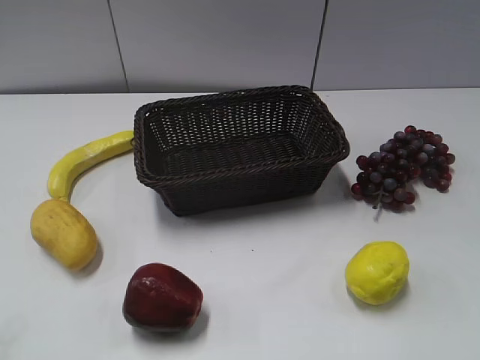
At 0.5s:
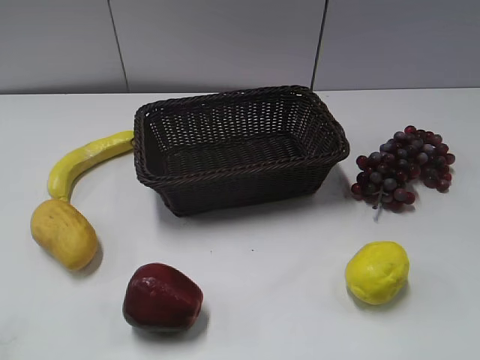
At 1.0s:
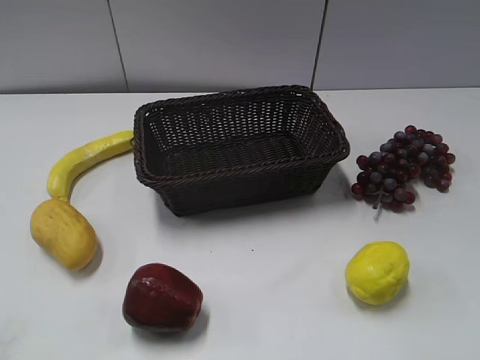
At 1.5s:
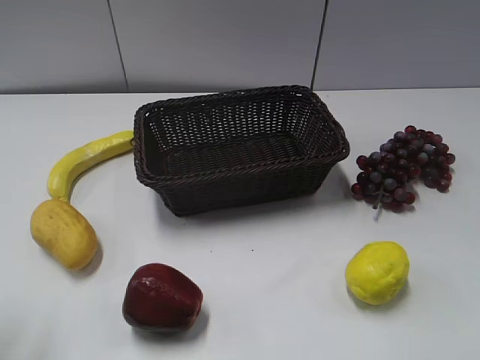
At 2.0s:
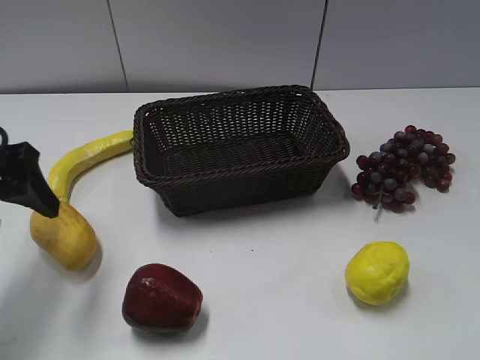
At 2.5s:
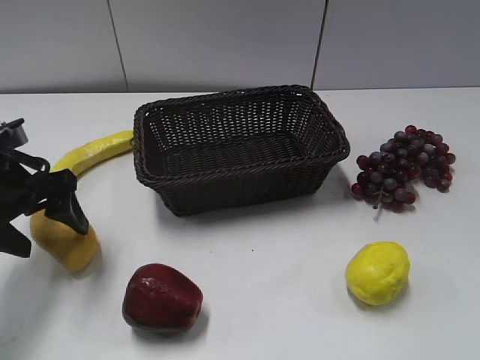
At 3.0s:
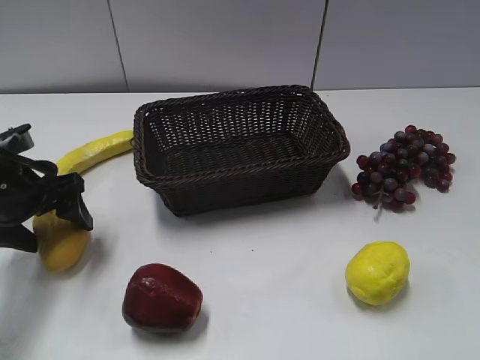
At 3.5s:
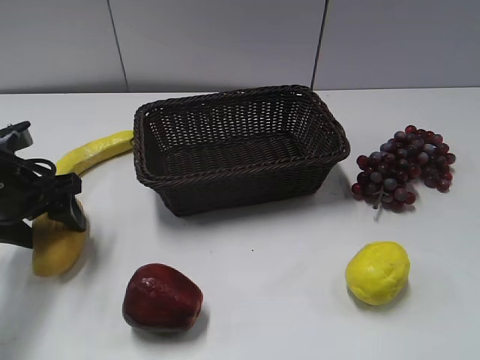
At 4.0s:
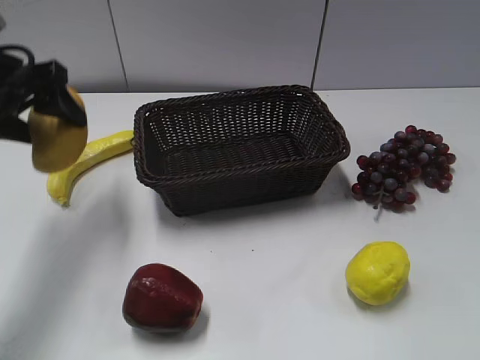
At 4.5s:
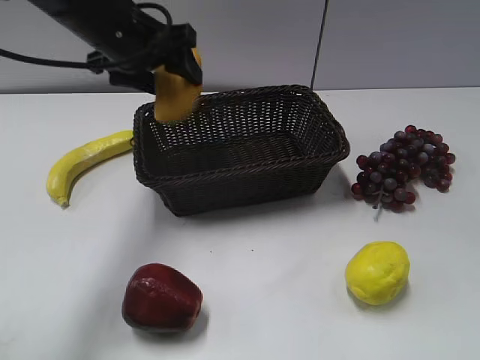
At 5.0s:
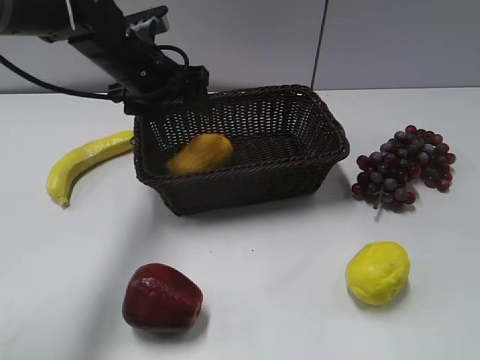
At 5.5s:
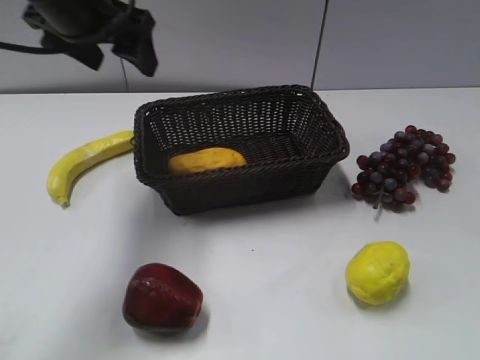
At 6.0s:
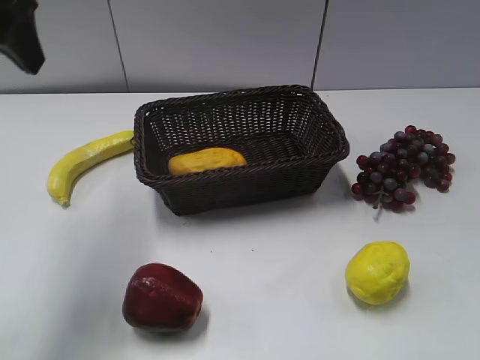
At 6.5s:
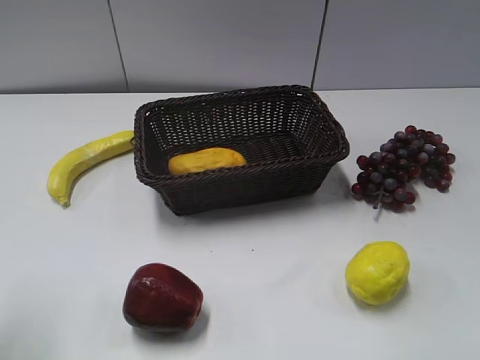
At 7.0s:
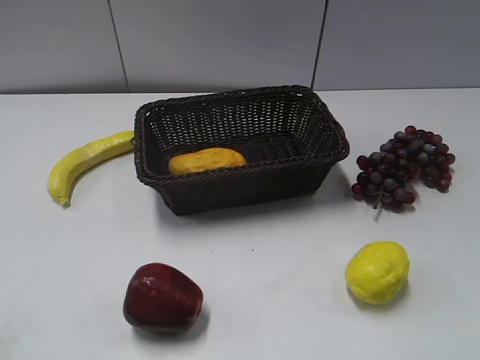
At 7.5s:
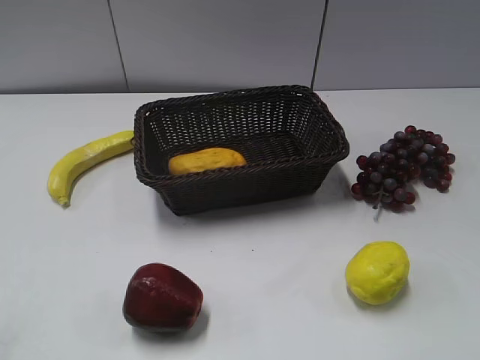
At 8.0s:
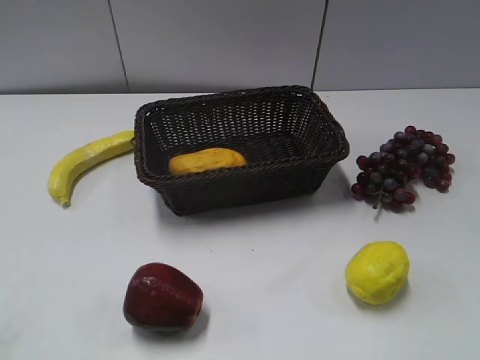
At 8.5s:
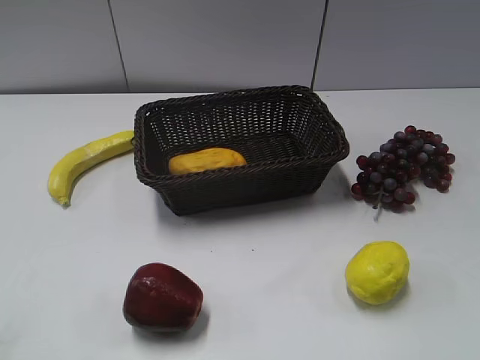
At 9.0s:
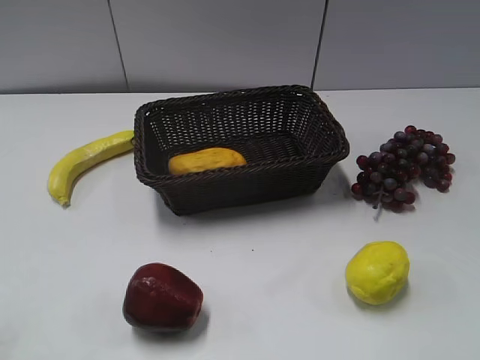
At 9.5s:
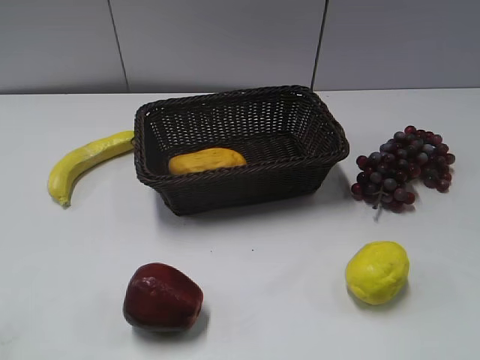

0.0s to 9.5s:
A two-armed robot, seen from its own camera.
Step, 2.0s to 3.0s: Grasp the mango with left gripper.
Step, 3.5s to 5.0s: Place the mango in the basket with left gripper.
2.0s to 4.0s: The left gripper moves upward and forward, some 10 cm, and closes up.
4.0s to 5.5s: The left gripper moves to the right, approximately 5 cm, and opens.
5.5s to 7.5s: The left gripper is displaced backward and to the left by roughly 35 cm, and closes up.
